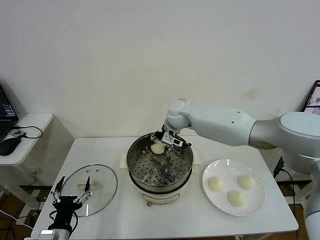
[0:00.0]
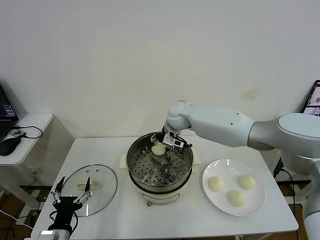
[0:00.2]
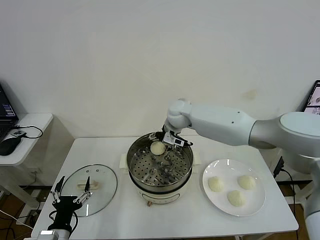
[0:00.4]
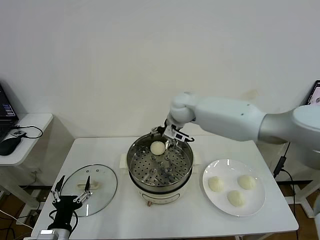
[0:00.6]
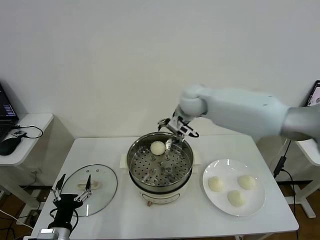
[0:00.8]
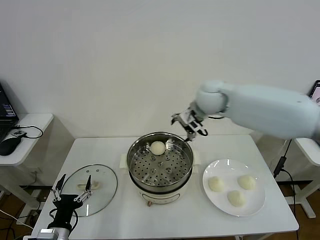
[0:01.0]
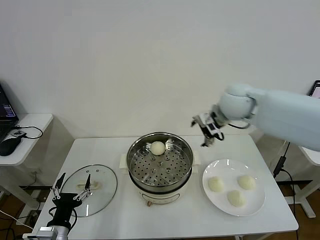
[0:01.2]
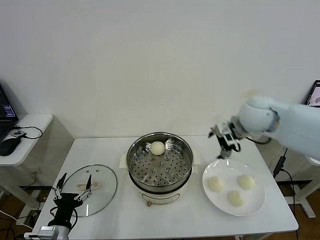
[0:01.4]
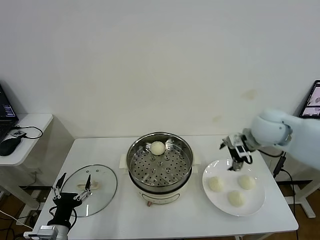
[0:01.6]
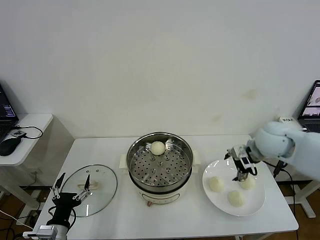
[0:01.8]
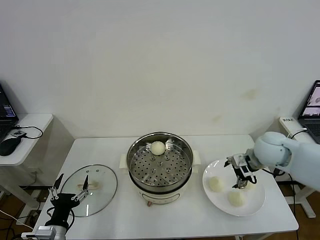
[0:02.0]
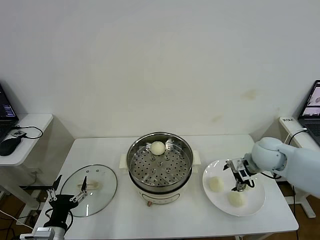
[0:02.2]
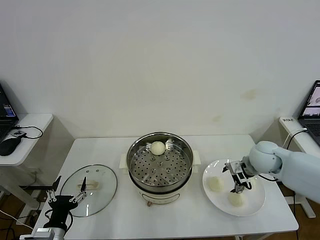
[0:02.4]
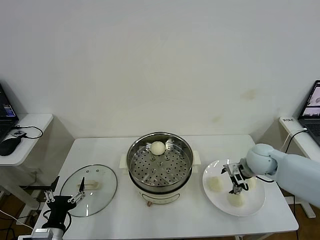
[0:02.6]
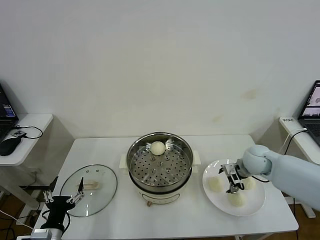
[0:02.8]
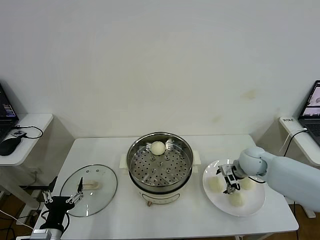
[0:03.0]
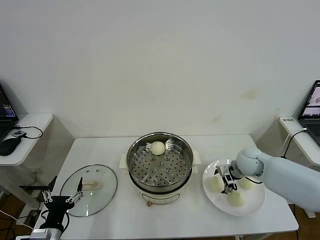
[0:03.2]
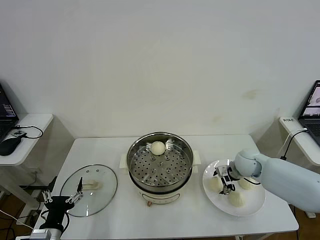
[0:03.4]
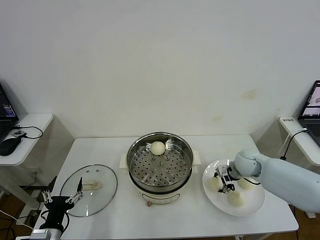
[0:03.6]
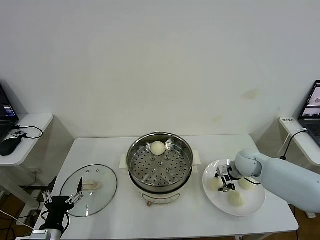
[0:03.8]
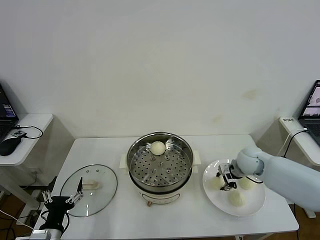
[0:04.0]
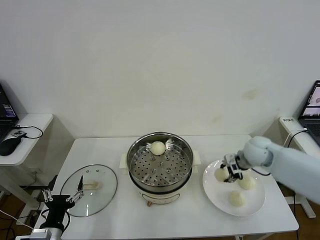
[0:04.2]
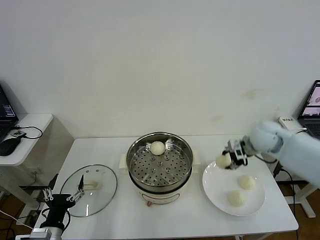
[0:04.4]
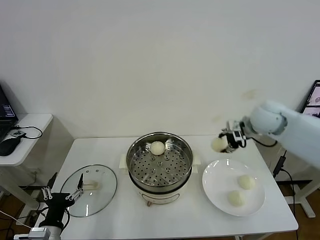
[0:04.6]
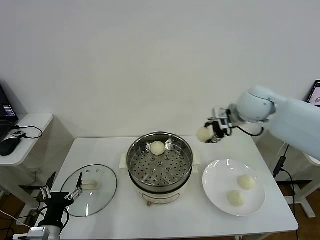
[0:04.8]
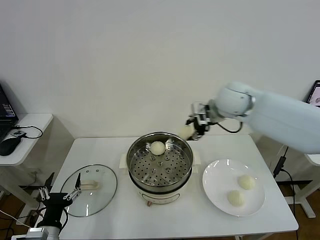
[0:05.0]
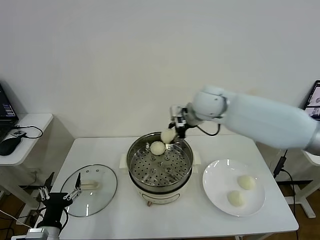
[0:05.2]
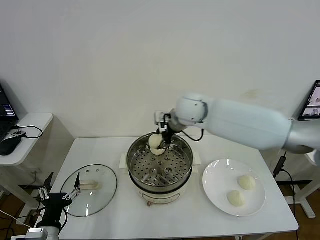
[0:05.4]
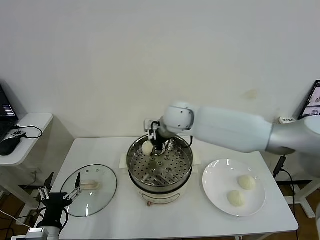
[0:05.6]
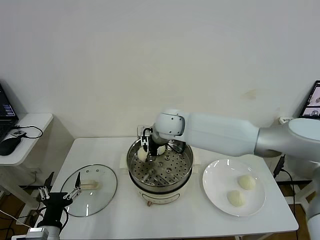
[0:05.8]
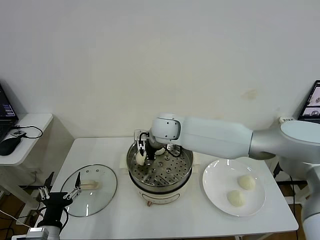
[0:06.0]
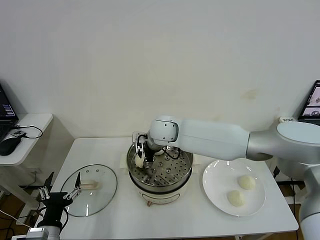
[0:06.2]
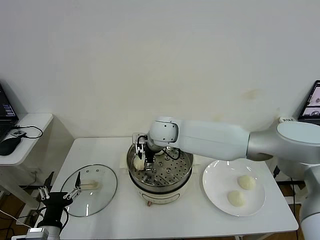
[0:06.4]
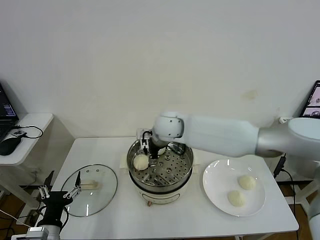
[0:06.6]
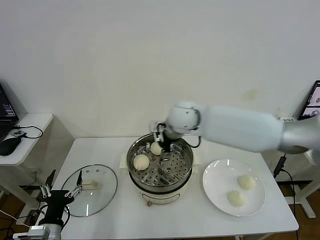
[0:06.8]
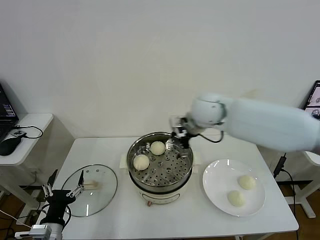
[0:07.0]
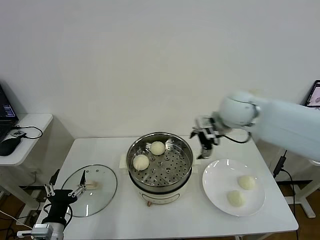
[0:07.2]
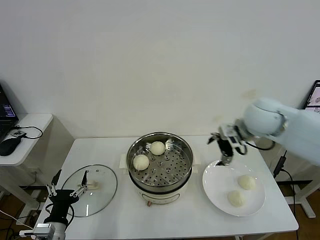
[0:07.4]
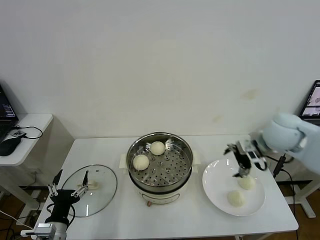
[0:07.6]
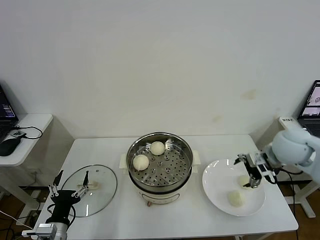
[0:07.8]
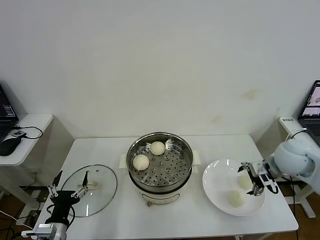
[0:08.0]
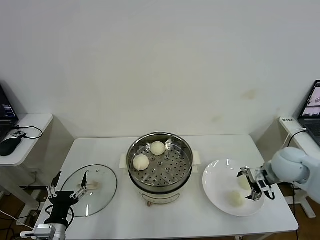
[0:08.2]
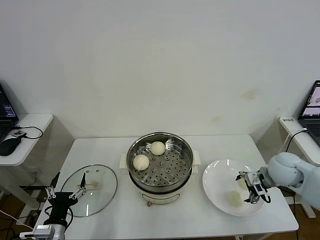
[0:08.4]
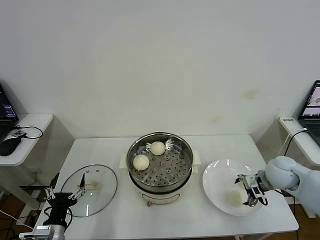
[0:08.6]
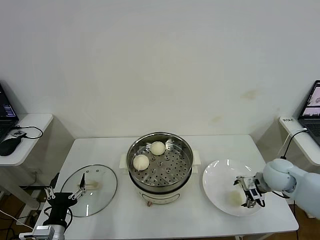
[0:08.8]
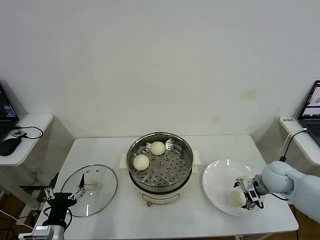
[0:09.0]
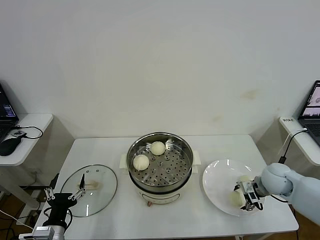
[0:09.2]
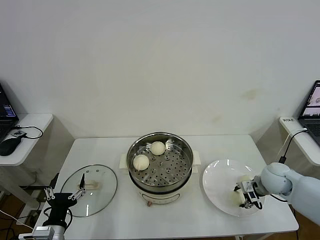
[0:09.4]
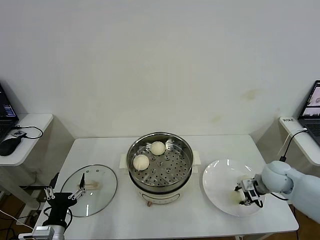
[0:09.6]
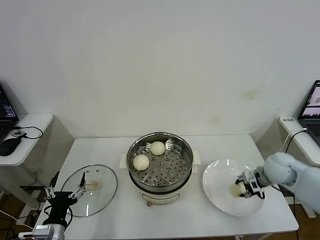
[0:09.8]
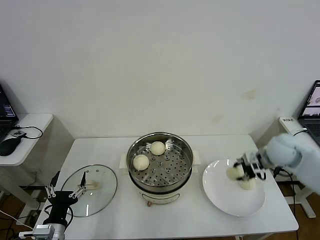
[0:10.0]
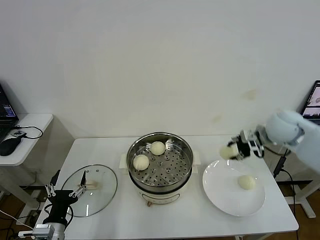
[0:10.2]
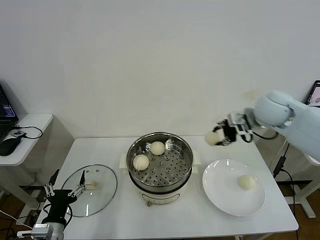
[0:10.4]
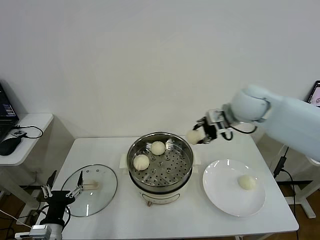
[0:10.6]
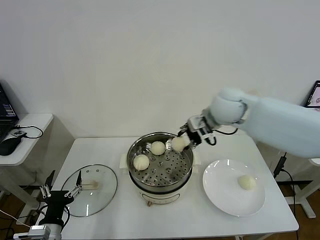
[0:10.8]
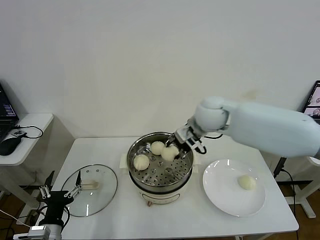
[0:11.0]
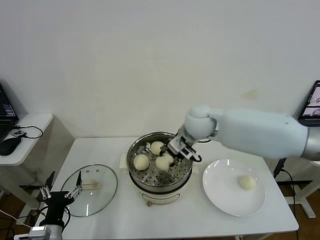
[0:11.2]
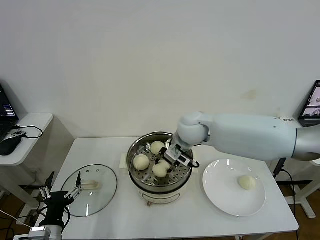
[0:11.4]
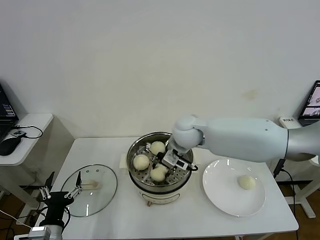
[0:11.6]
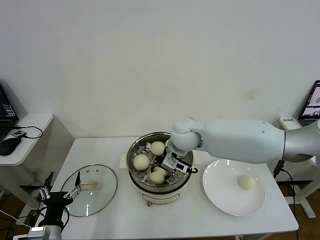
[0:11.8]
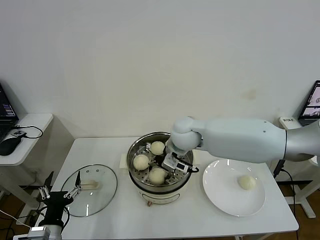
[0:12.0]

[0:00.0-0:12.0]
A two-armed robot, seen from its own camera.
Step, 0:00.4 to 0:03.6: Grasp the baozi in the plate with right gripper.
Step, 0:03.8 to 0:06.4: Place the baozi on the steamer with right gripper.
Step, 0:06.6 to 0:09.4: Grasp the baozi in the plate with right gripper.
0:00.0 to 0:01.6: The right gripper heads to the right and backward, covering some 30 cm, and opens its fingers.
0:01.6 to 0:03.0: The right gripper goes approximately 15 cm downward.
0:03.0 to 0:04.4: The right gripper shifts approximately 15 cm upward, and closes up.
0:04.4 to 0:06.0: The right gripper goes some 30 cm to the left.
0:06.0 to 0:07.6: The right gripper moves to the right, approximately 35 cm, and opens up.
0:07.6 to 0:09.0: The right gripper travels downward by approximately 15 cm.
0:09.0 to 0:10.4: The right gripper shifts some 25 cm upward, forward and to the left, and closes.
0:10.4 to 0:12.0: The right gripper shifts some 25 cm to the left and downward, and opens.

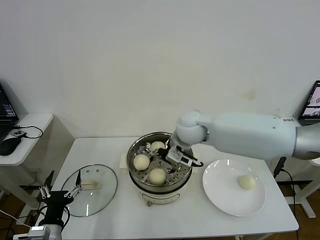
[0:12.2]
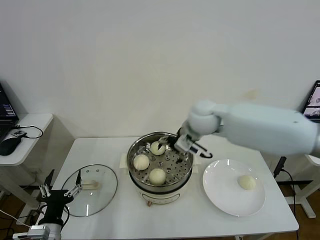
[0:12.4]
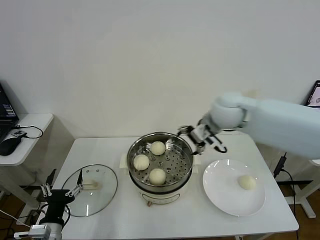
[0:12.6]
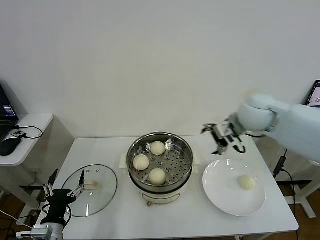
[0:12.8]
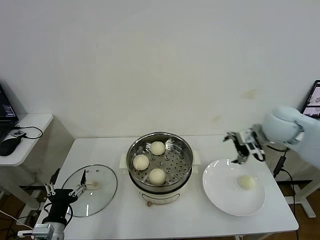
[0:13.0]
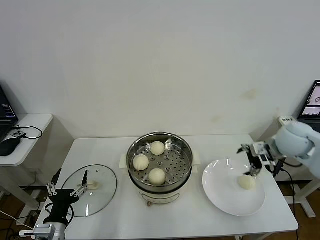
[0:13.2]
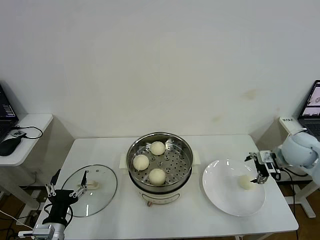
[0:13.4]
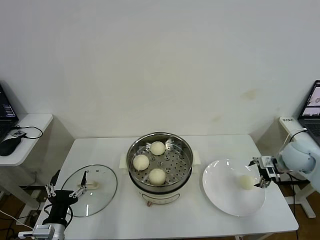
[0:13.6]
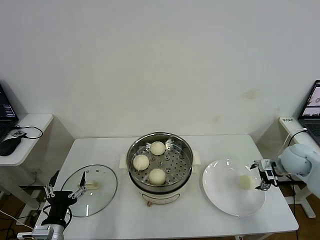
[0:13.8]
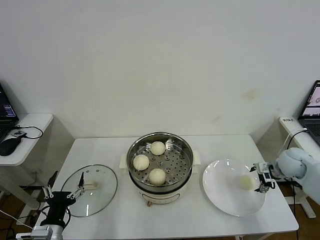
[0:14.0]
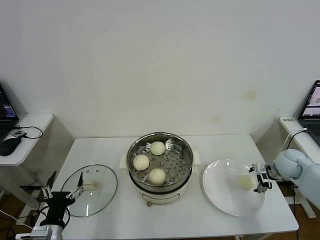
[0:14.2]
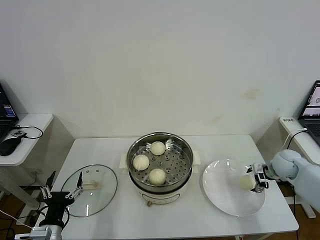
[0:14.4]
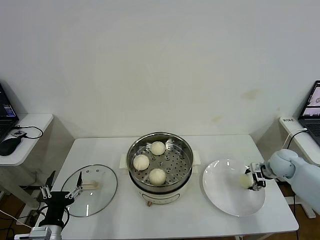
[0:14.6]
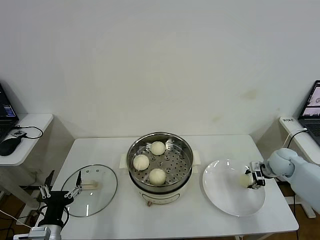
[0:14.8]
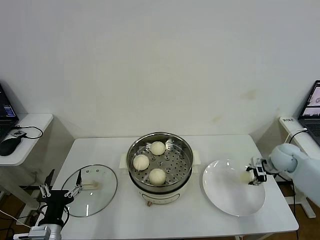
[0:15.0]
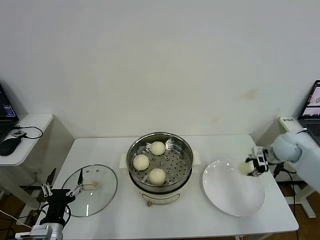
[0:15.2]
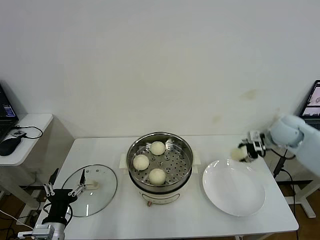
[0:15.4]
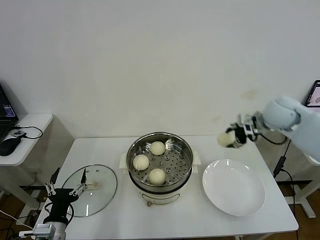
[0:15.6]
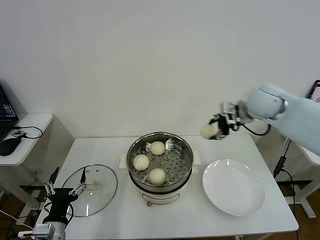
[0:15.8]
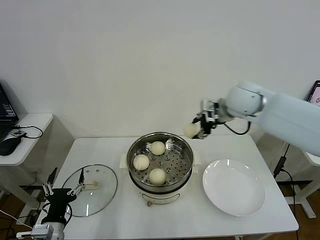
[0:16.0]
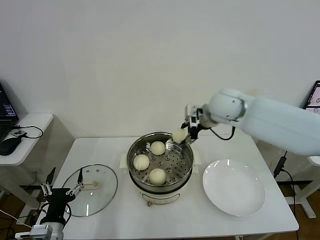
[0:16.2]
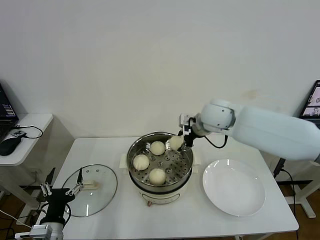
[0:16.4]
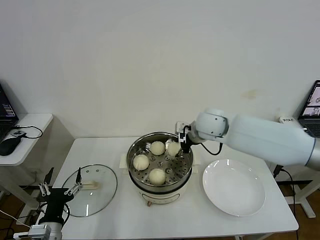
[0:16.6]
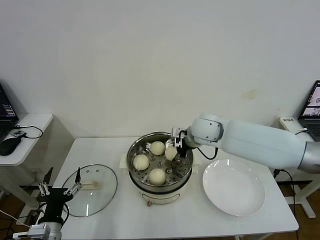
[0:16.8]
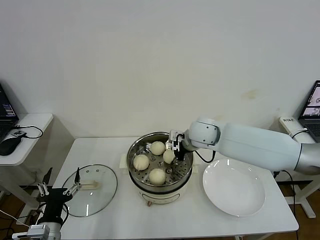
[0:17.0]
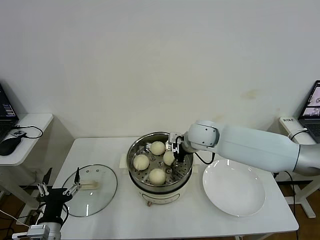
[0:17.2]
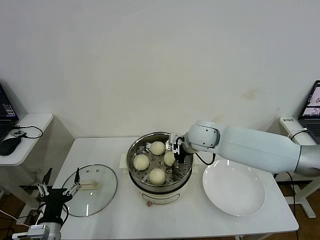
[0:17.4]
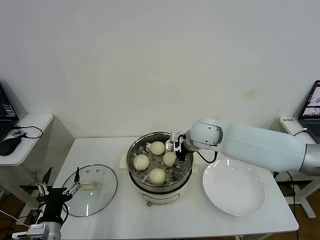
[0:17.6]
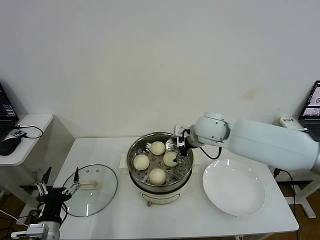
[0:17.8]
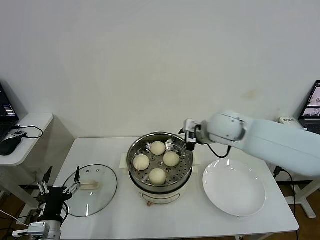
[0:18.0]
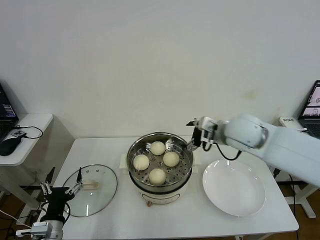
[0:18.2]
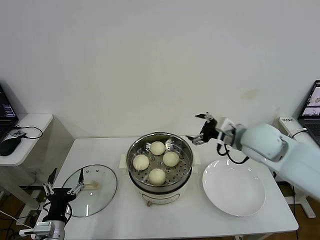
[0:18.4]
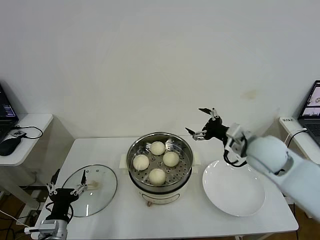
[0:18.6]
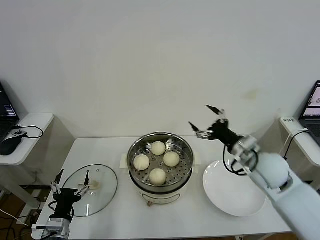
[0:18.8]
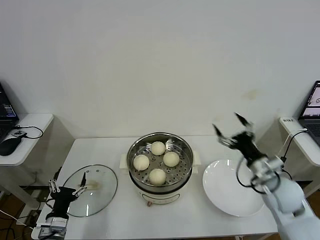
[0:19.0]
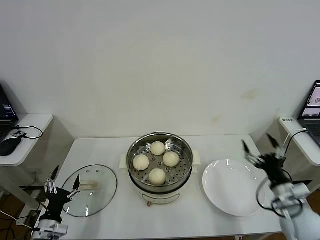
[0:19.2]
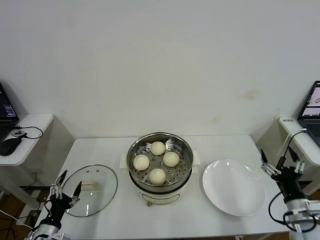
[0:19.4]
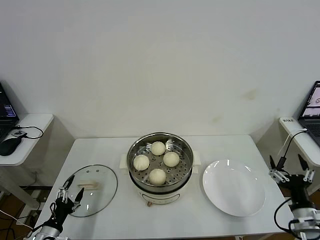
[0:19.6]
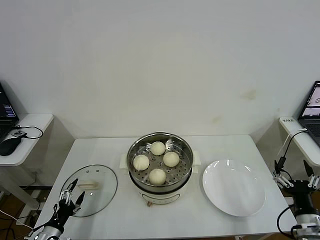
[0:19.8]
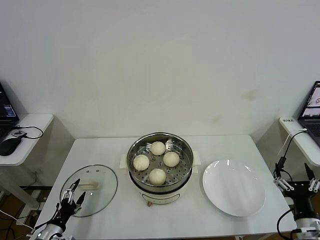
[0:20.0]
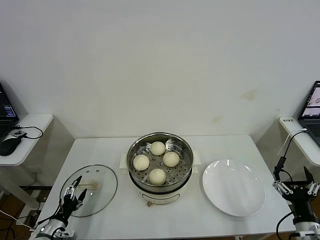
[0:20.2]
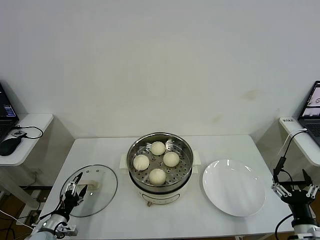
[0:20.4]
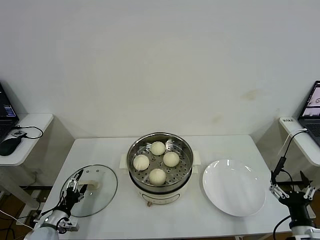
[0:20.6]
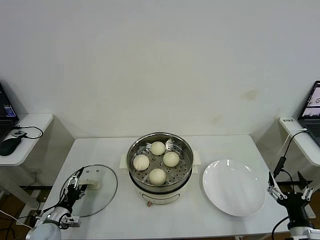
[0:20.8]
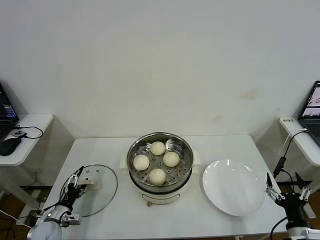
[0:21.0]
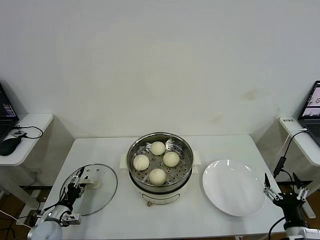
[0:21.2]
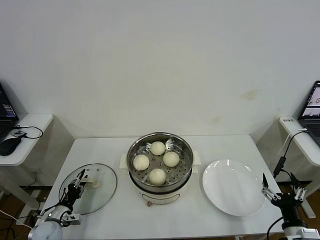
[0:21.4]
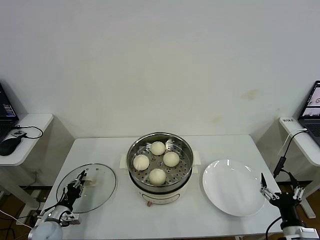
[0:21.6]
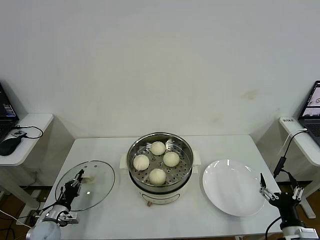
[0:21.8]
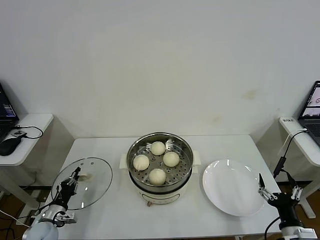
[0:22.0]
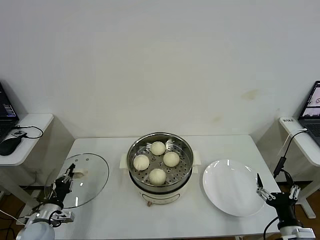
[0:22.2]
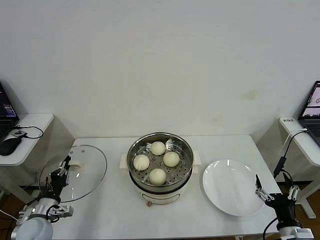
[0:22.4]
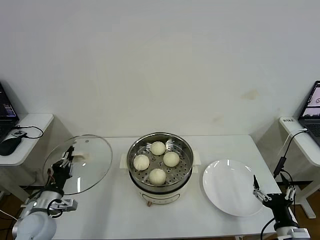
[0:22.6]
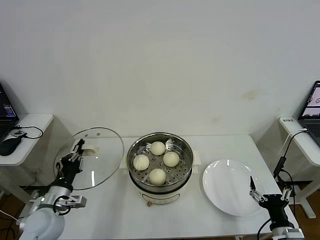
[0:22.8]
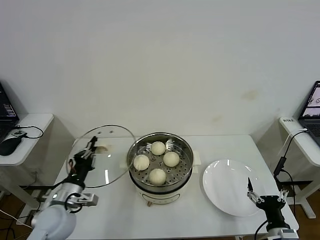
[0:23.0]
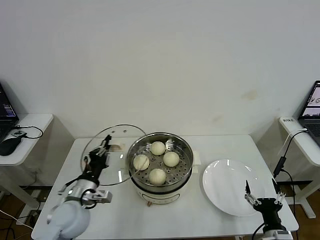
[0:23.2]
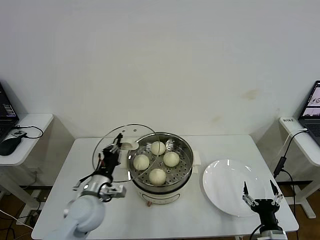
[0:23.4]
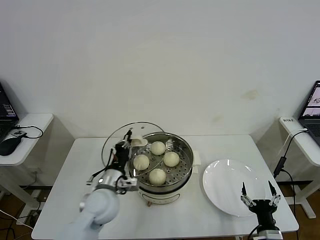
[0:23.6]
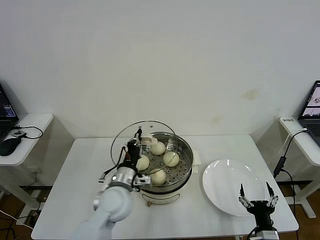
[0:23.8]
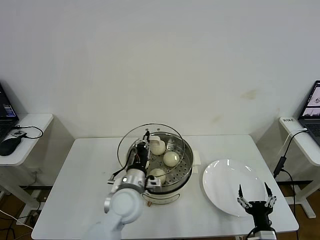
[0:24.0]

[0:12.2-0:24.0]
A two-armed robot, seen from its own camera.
Step, 0:12.2 to 0:14.6: Grasp the baozi in the plate with right gripper.
Step, 0:15.0 to 0:17.6: Place the baozi on the steamer with right gripper.
Step, 0:17.8 to 0:21.8: Grasp the pot lid with left gripper.
0:12.2 to 0:13.6: The right gripper goes roughly 35 cm to the right.
0:13.6 to 0:15.2: The right gripper reaches approximately 10 cm downward, then returns, and closes.
0:15.2 to 0:16.6: The right gripper goes some 30 cm to the left.
0:16.6 to 0:18.2: The right gripper moves to the right and backward, roughly 10 cm, and opens up.
0:18.2 to 0:19.6: The left gripper travels to the left and downward by roughly 10 cm; the right gripper goes about 35 cm backward, downward and to the right.
0:19.6 to 0:21.0: The left gripper goes approximately 10 cm forward, while the right gripper moves some 5 cm.
0:21.0 to 0:22.6: The left gripper travels upward by some 15 cm, and closes.
0:22.6 to 0:24.0: The left gripper shifts roughly 25 cm to the right; the right gripper is displaced to the left by about 5 cm.
